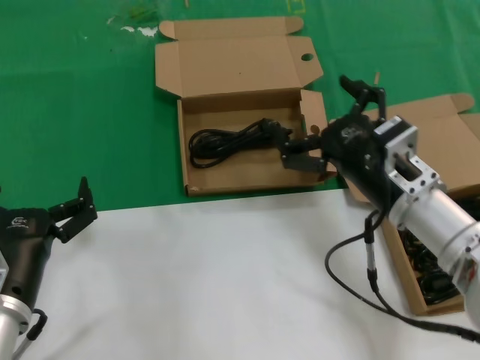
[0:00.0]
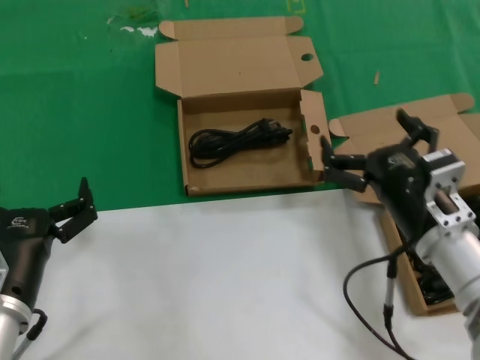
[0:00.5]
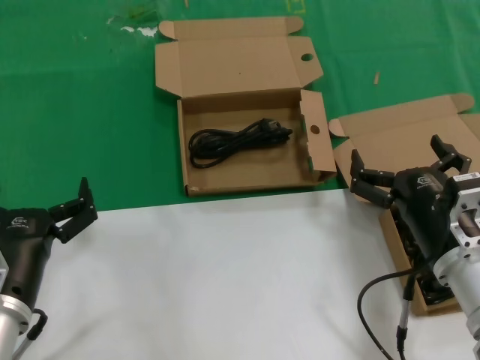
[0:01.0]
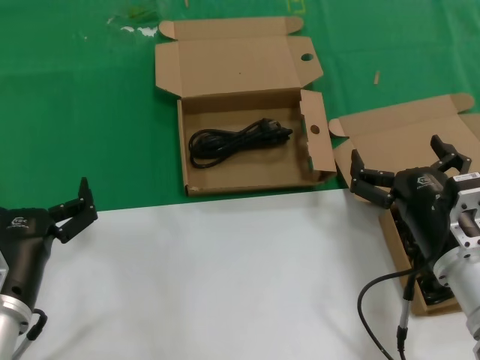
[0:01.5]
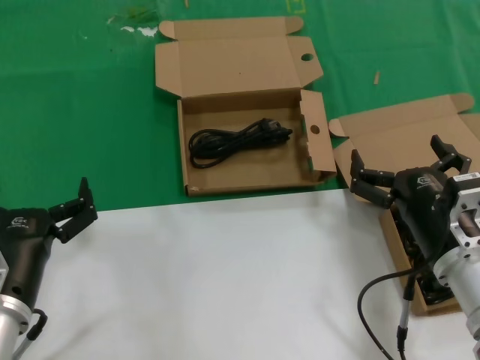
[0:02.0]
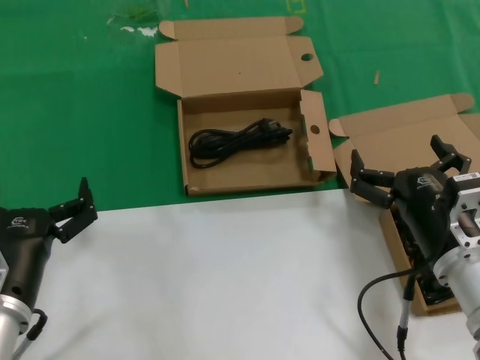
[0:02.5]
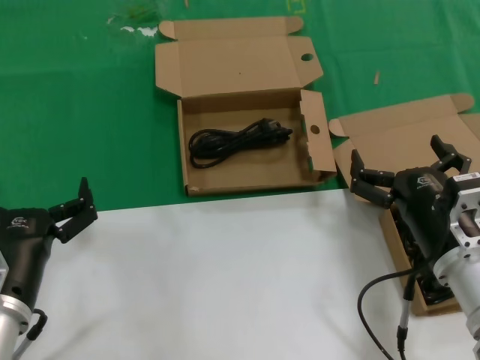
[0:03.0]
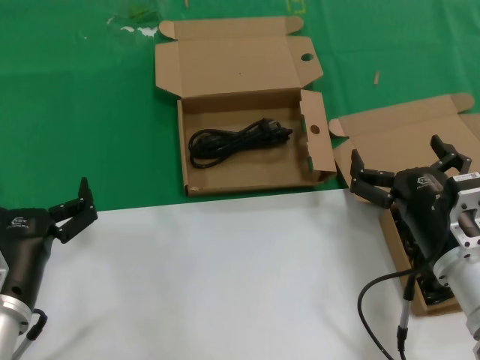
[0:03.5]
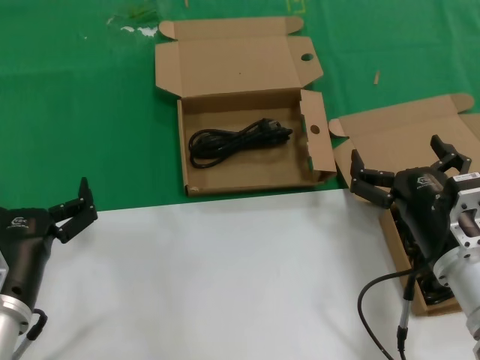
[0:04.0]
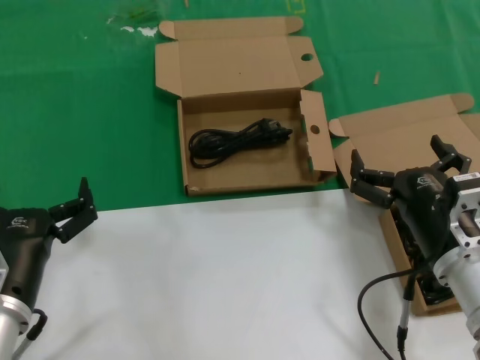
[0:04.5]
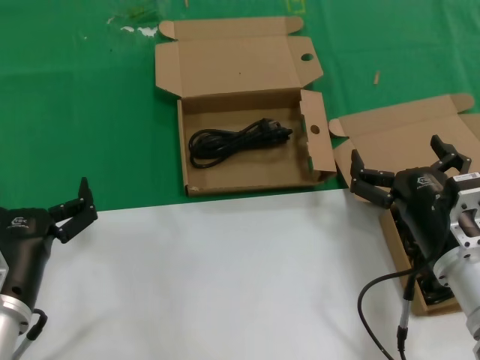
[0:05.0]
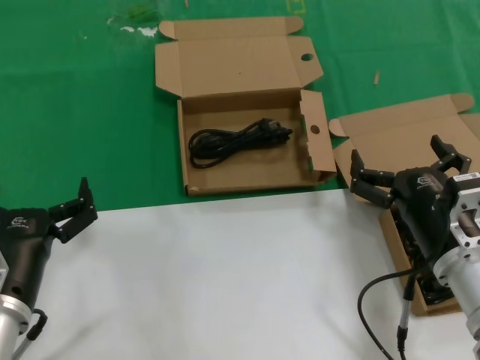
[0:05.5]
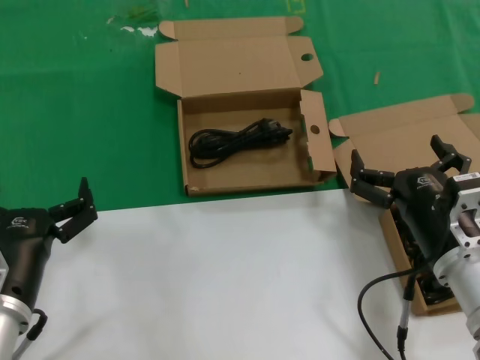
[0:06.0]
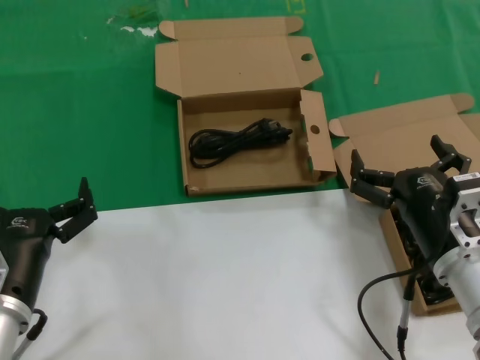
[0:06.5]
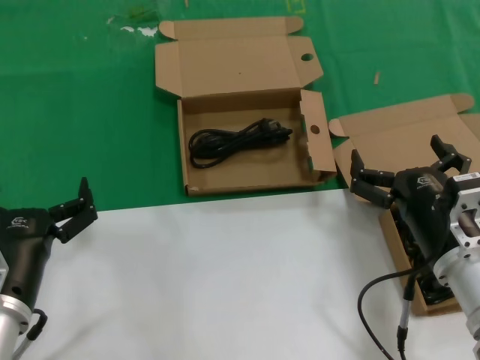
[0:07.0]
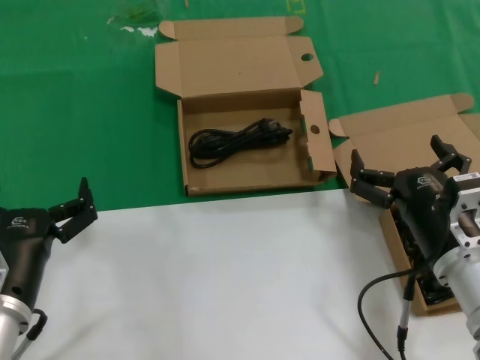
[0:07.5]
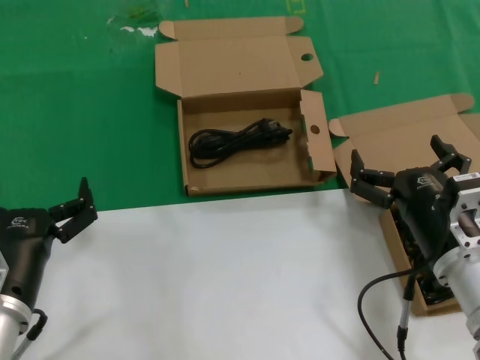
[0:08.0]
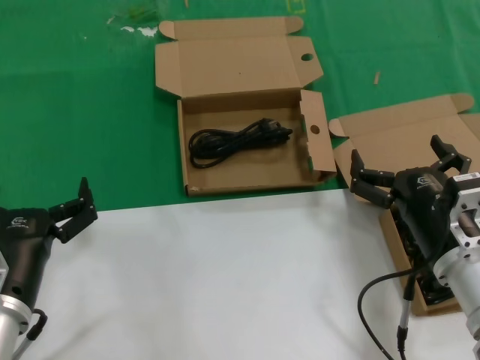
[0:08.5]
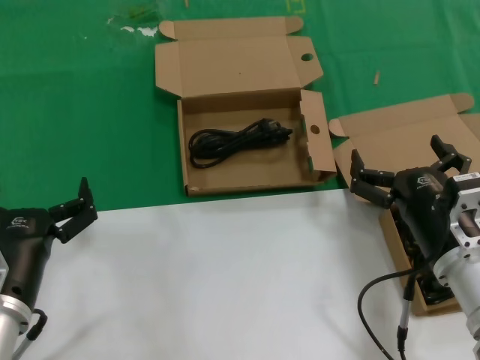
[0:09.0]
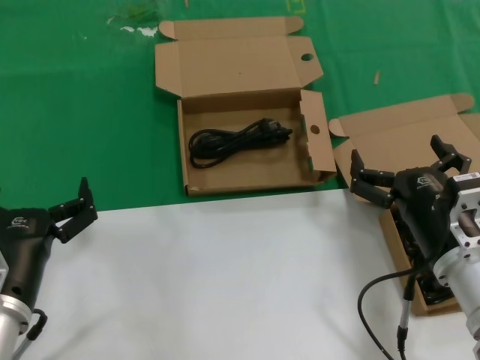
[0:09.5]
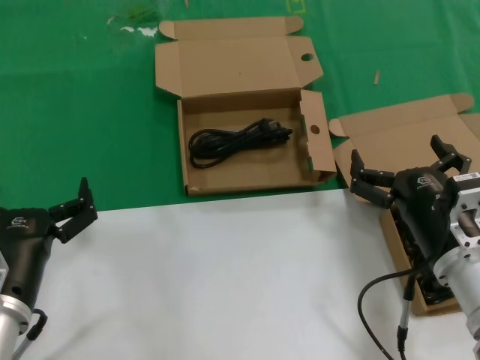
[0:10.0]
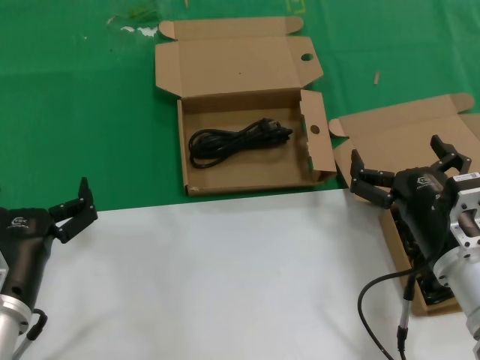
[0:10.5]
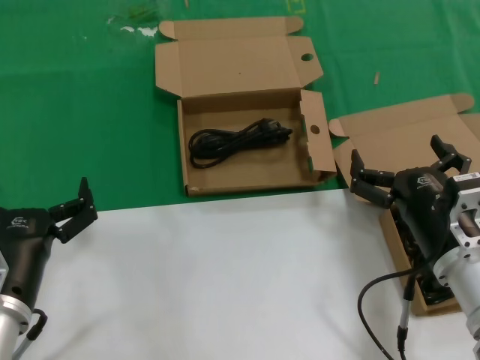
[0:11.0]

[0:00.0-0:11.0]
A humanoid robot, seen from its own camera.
Task of the whole recording: take the parts from the box containing them and put them into an empty box.
0:00.0 to 0:02.0: The right hand heads backward and downward, covering some 10 cm.
0:02.0 to 0:11.0: Both hands stay about where they are.

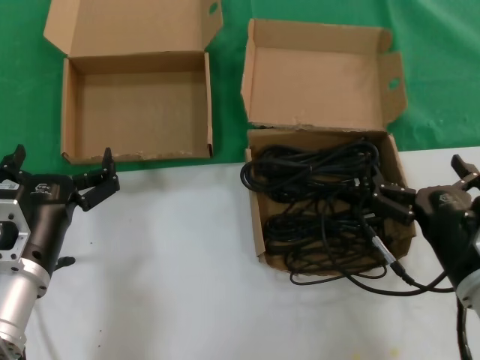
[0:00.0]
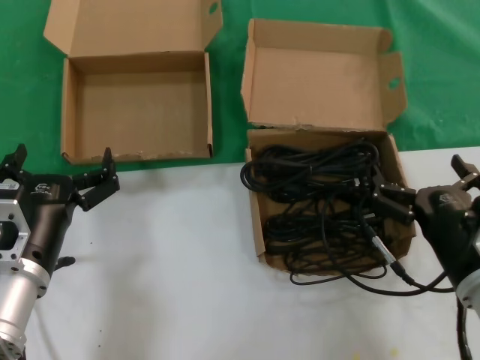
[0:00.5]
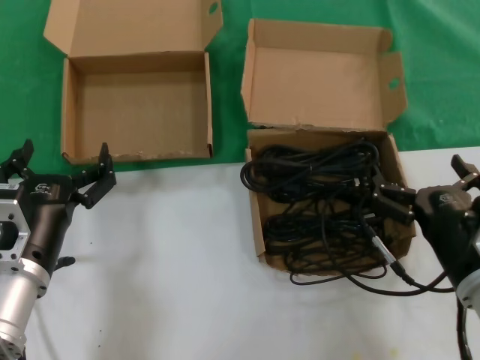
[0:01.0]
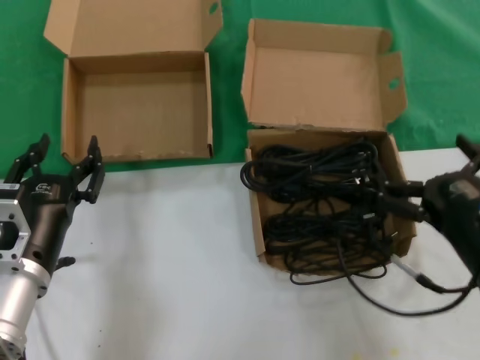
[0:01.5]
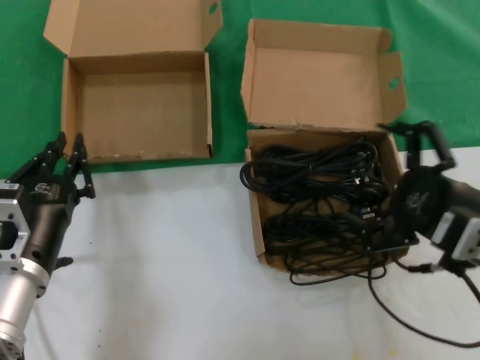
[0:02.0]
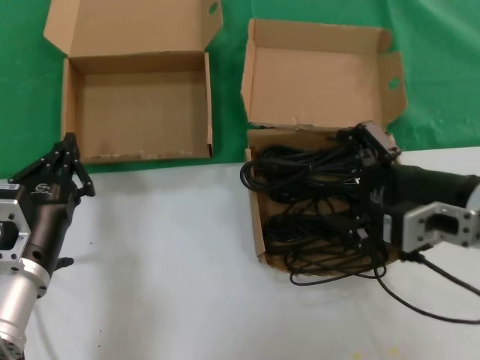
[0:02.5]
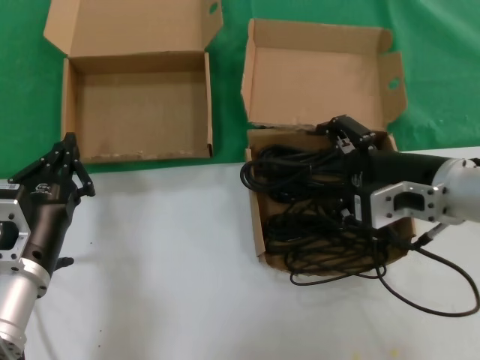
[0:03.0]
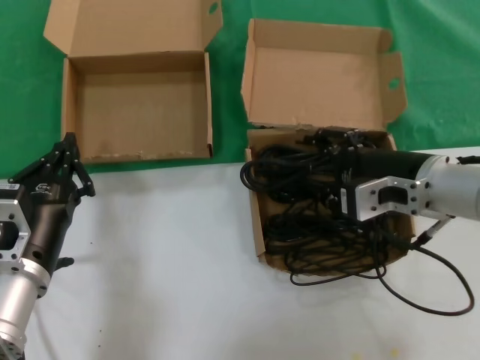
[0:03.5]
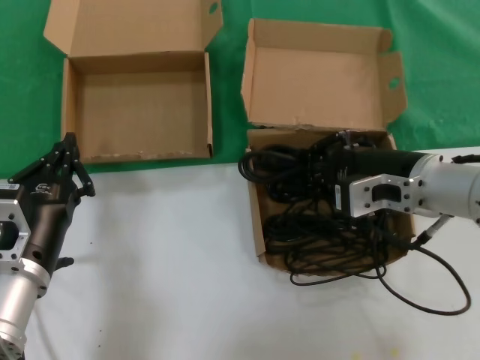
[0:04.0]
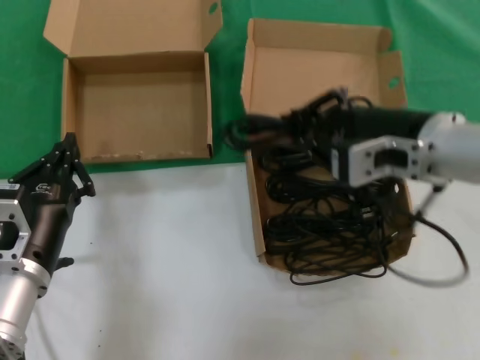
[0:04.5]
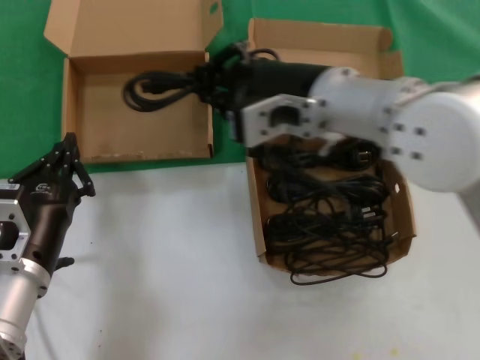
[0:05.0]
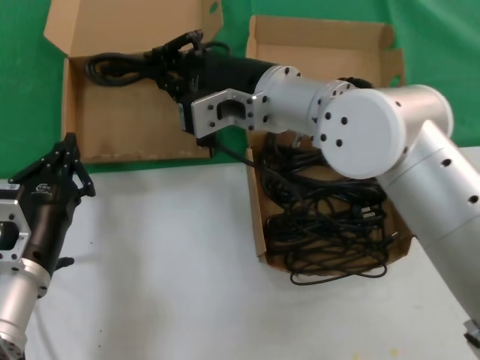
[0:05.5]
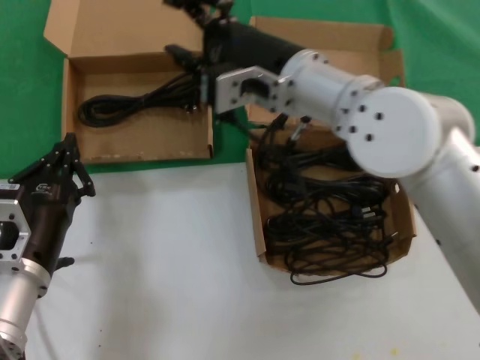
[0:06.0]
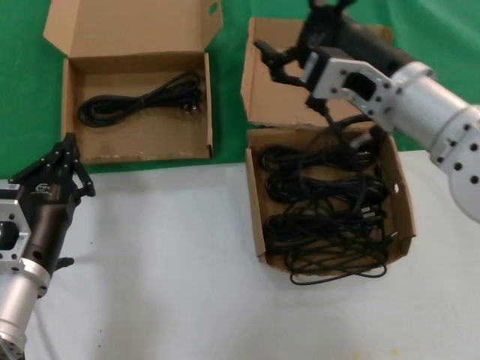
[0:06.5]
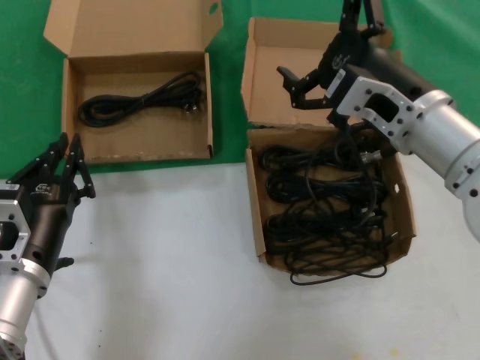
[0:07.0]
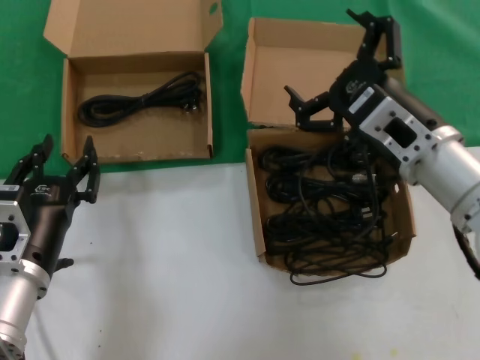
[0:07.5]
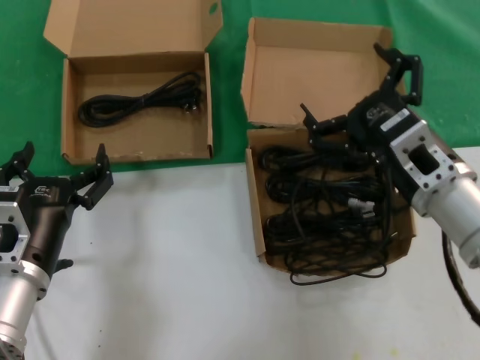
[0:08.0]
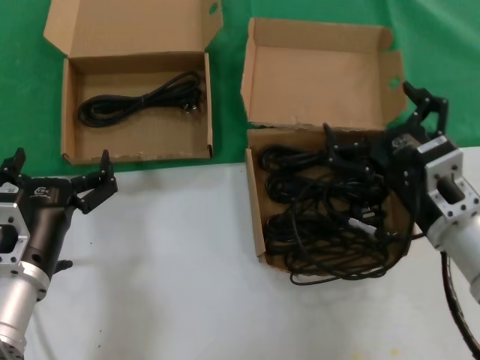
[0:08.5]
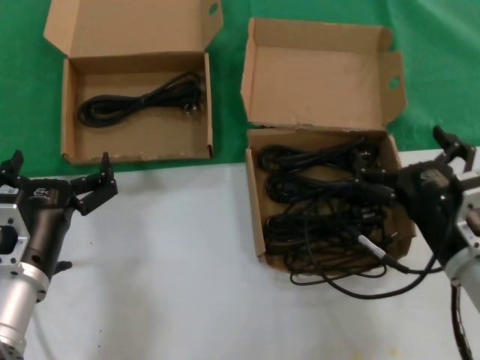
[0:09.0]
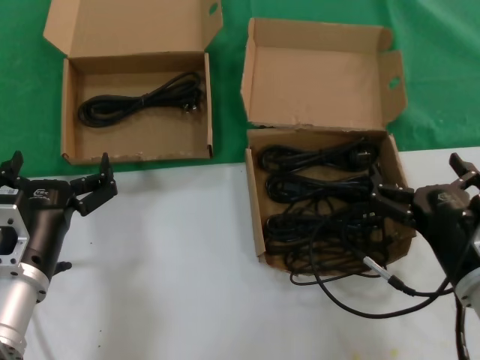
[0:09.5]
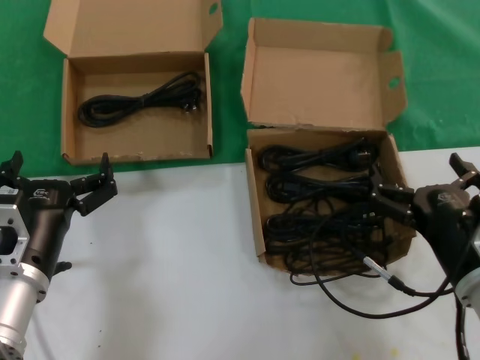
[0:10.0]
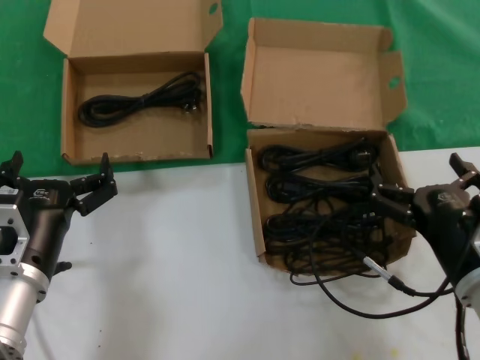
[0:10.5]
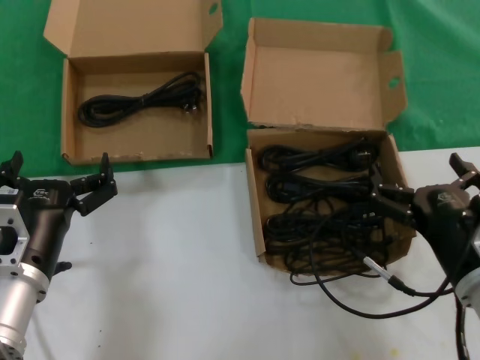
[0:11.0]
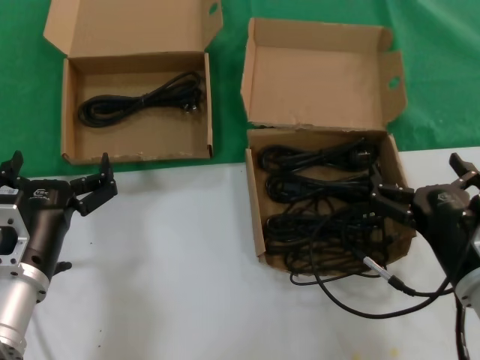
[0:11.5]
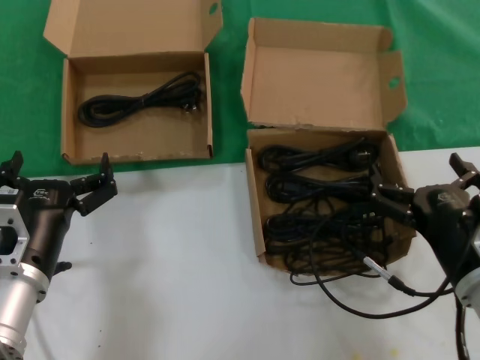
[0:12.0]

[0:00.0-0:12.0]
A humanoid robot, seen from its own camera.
Task of the whole recording: take the parts from the box containing them and put them into an empty box.
Step, 0:00.0 to 0:03.5: Grasp the data cable.
Step, 0:04.0 to 0:05.5: Place the data cable in the another box.
0:00.0 to 0:02.0: The right hand heads upward, covering some 10 cm.
0:02.0 to 0:04.0: The right hand heads forward and to the left, covering some 15 cm.
0:04.0 to 0:06.0: The right hand moves to the left and upward, about 15 cm.
0:06.0 to 0:08.0: The right hand goes about 20 cm to the right, downward and backward.
0:08.0 to 0:10.0: The right hand is displaced downward and backward by about 10 cm.
0:10.0 to 0:12.0: The two hands keep their place.

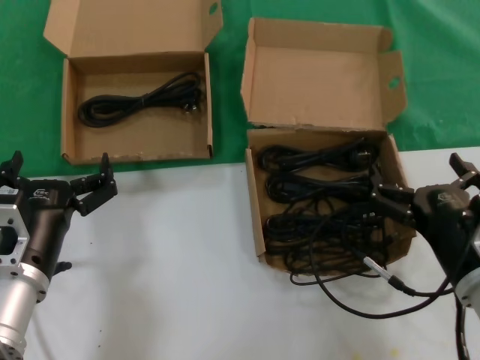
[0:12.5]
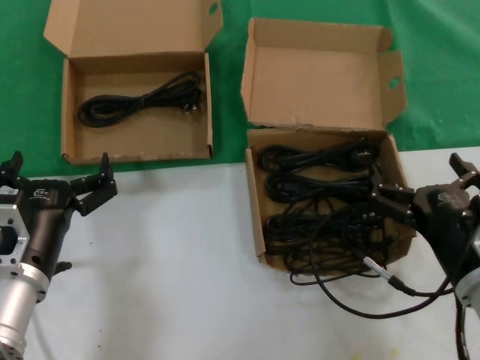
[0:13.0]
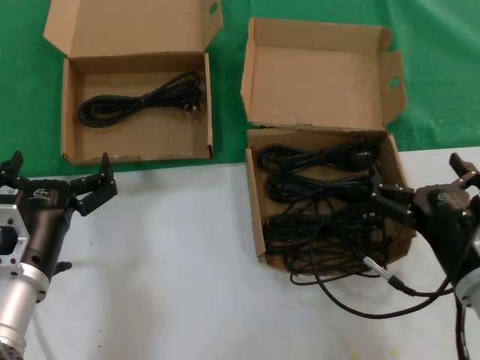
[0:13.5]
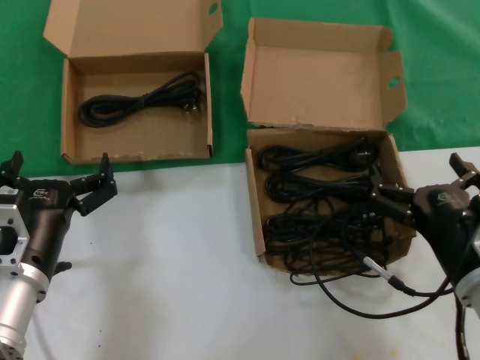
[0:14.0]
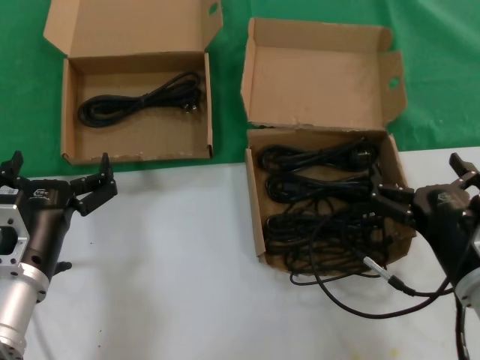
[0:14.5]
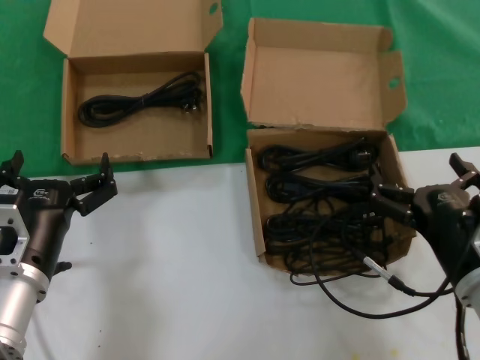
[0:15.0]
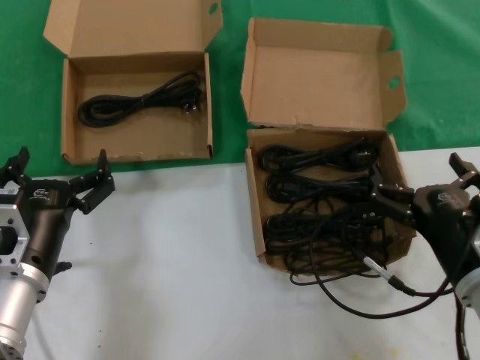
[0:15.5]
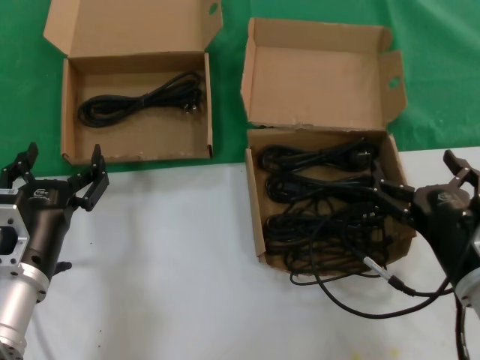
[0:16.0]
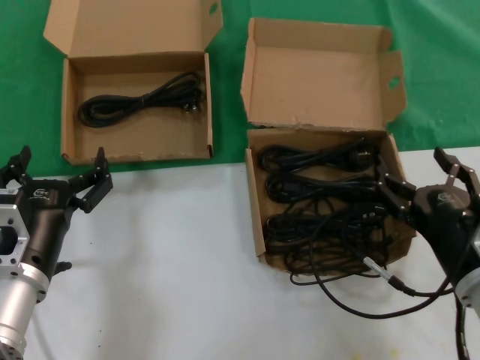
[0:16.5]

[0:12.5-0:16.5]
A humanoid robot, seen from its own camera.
Task of the whole recording: take the parts from the box containing them and put them into an empty box.
0:12.5 to 0:16.5: The two hands keep their place.
